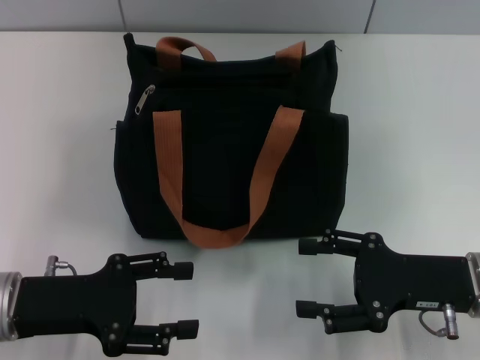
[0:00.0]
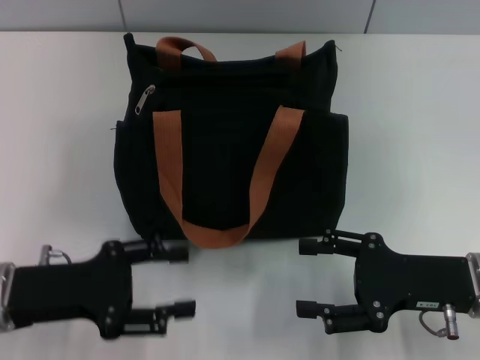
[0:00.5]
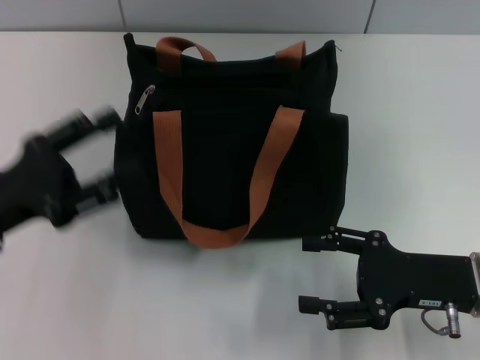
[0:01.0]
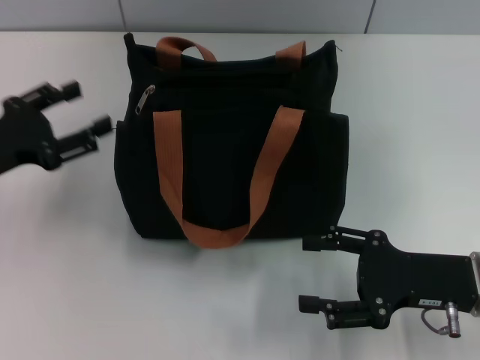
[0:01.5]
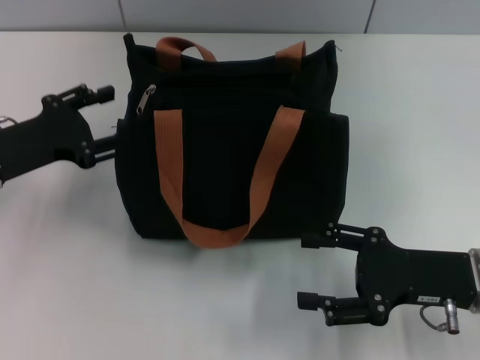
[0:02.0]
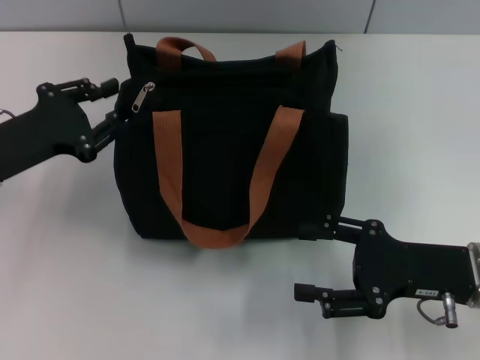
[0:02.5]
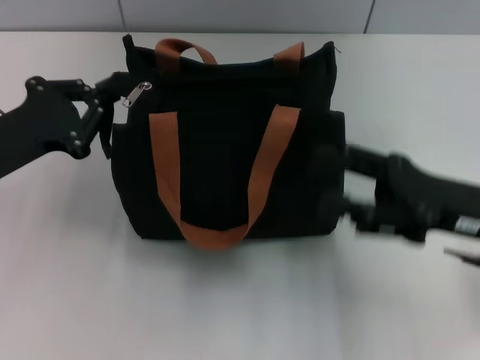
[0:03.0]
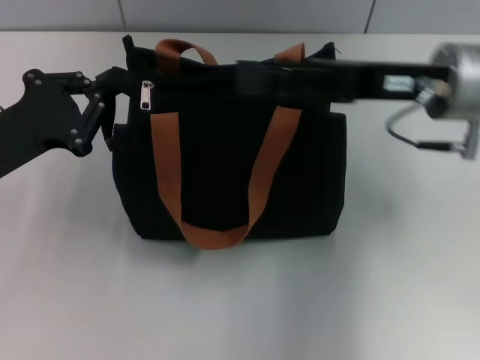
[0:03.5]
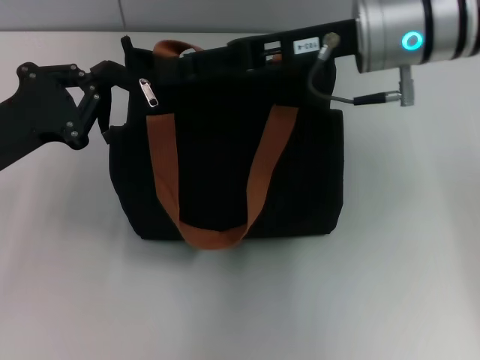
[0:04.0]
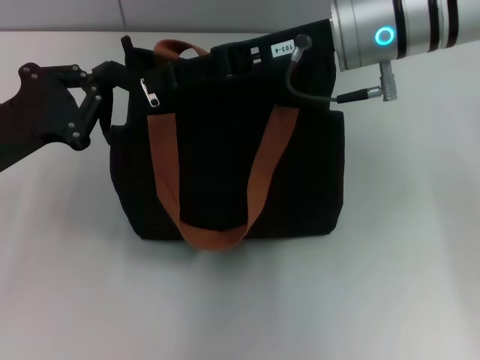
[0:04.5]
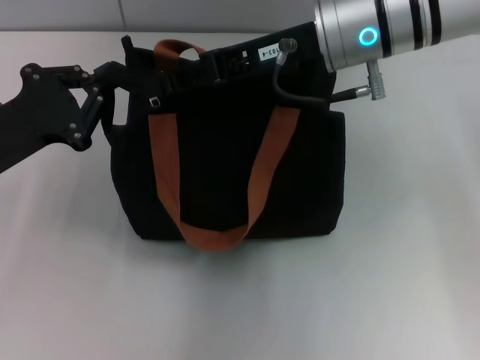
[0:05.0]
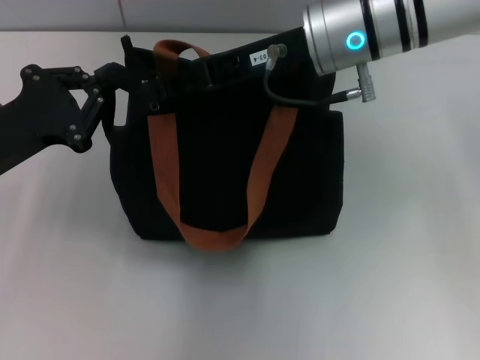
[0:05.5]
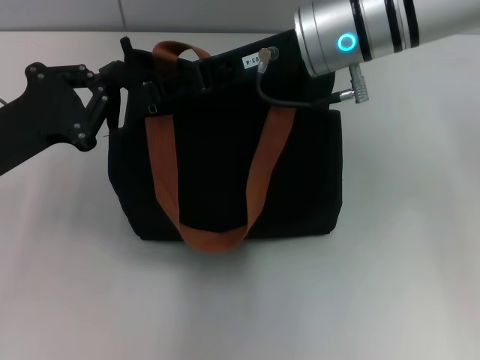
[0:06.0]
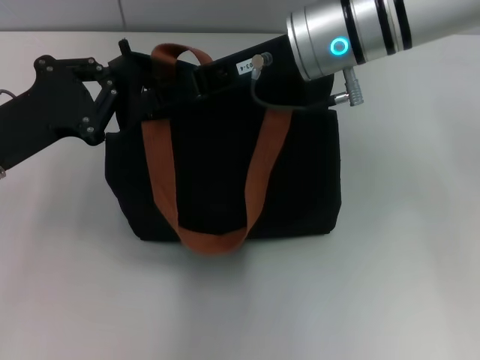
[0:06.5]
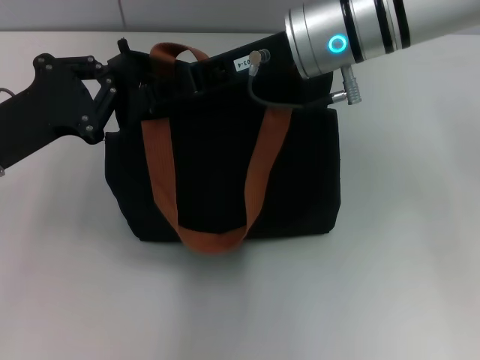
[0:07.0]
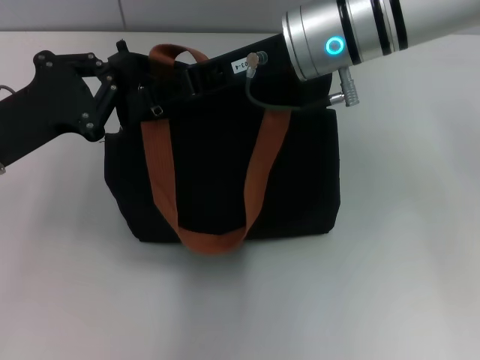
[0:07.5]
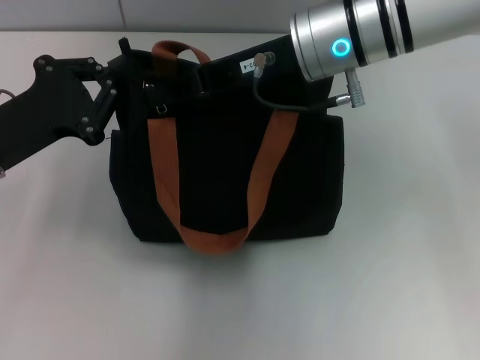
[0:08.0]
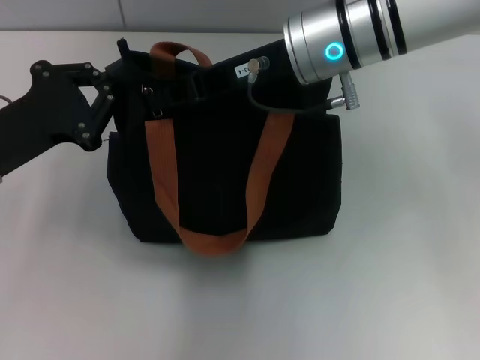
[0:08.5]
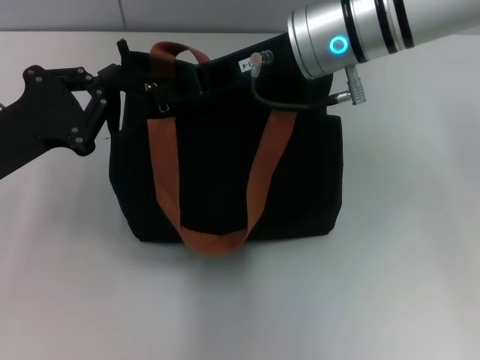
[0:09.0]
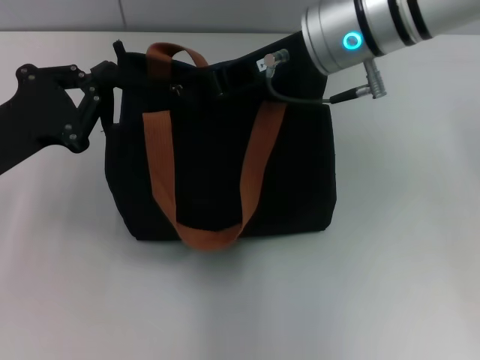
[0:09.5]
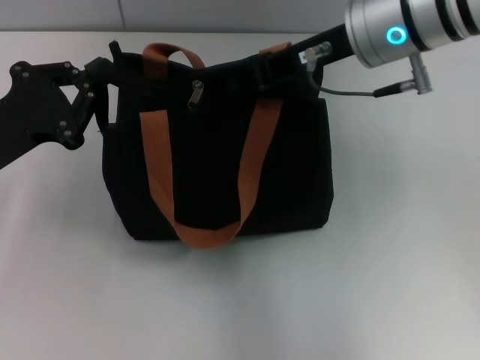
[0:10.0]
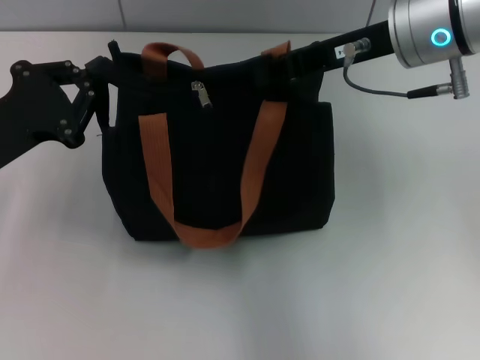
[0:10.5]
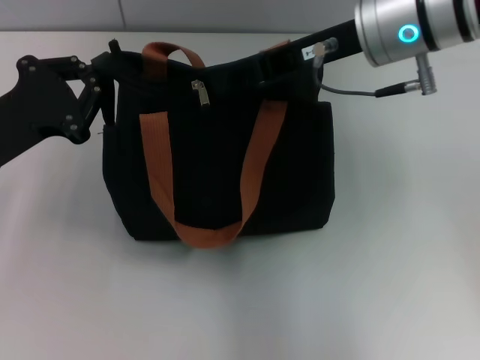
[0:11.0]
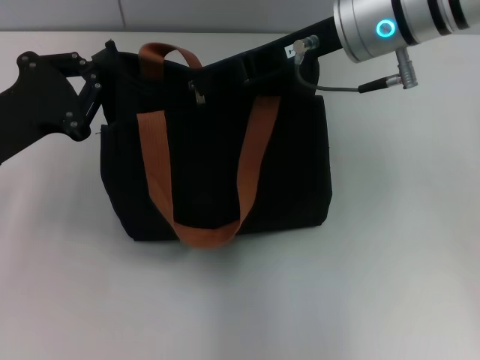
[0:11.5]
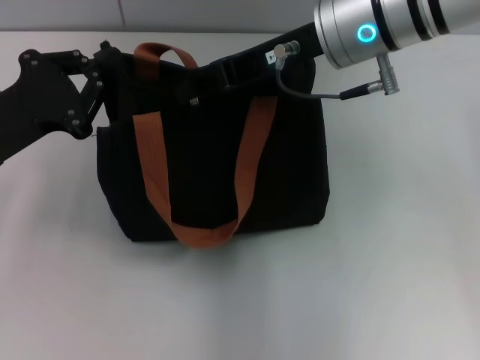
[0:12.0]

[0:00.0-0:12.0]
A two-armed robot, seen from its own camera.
0:00.0 to 0:02.0: The left gripper goes some 10 cm forward.
0:02.0 to 0:04.0: The left gripper closes, while the right gripper travels upward, forward and to the left by some 25 cm.
0:04.0 to 0:06.0: The right gripper closes up.
0:06.0 to 0:08.0: The right gripper closes up.
0:08.0 to 0:10.0: The grippers stay close to where they were, moving slightly.
0:10.0 to 0:12.0: The right gripper opens.

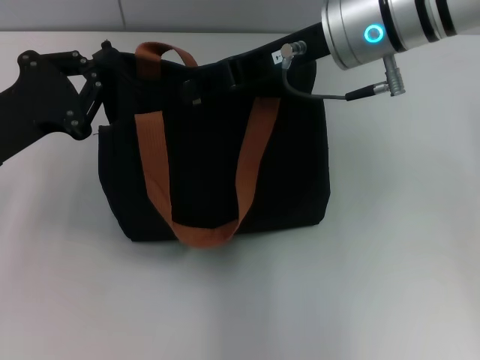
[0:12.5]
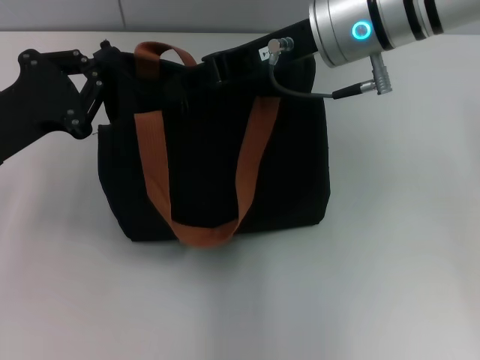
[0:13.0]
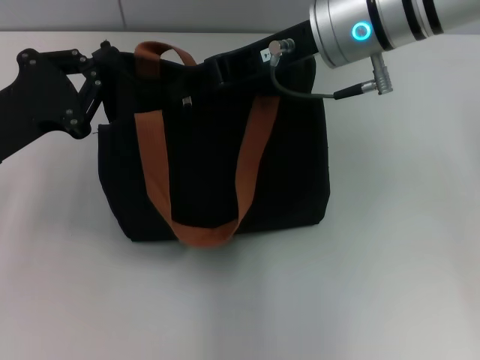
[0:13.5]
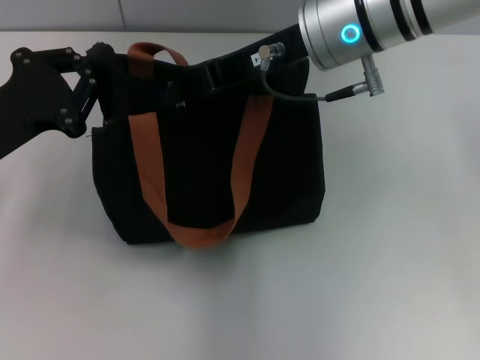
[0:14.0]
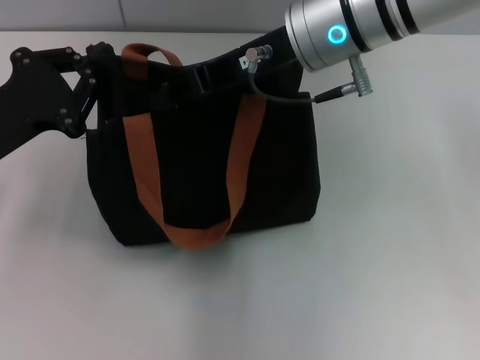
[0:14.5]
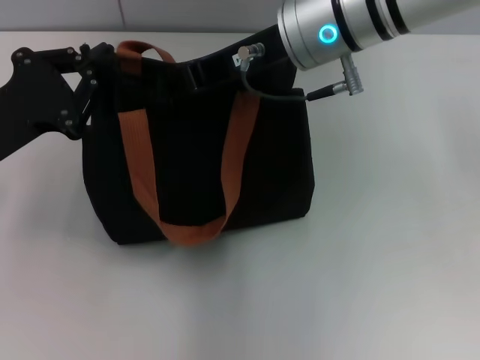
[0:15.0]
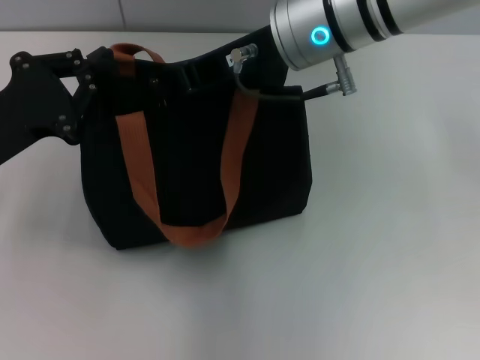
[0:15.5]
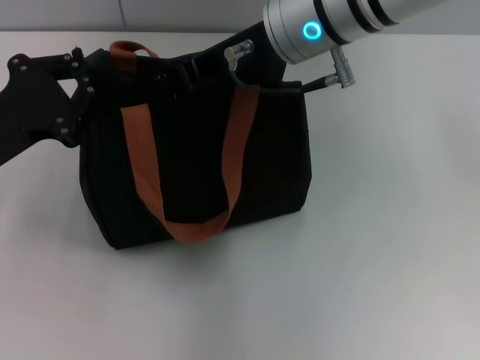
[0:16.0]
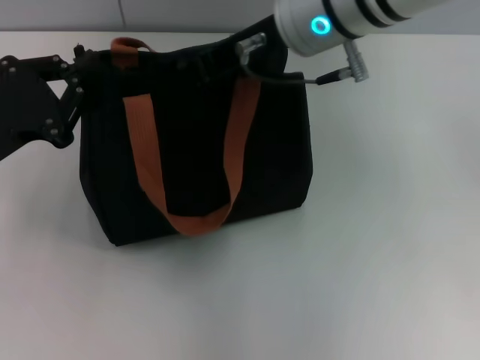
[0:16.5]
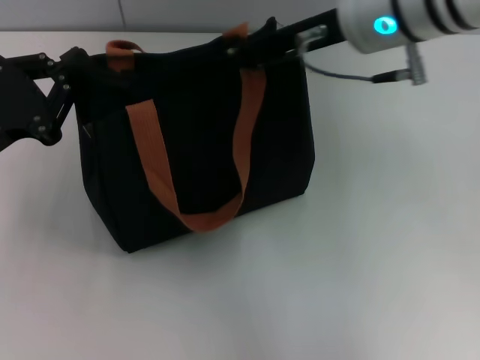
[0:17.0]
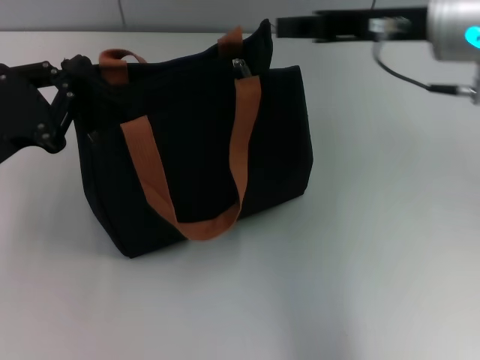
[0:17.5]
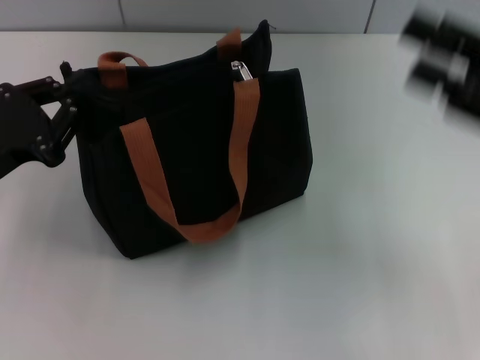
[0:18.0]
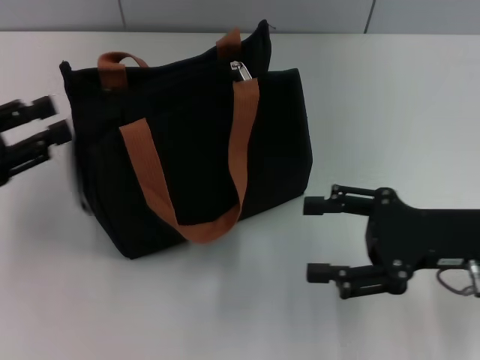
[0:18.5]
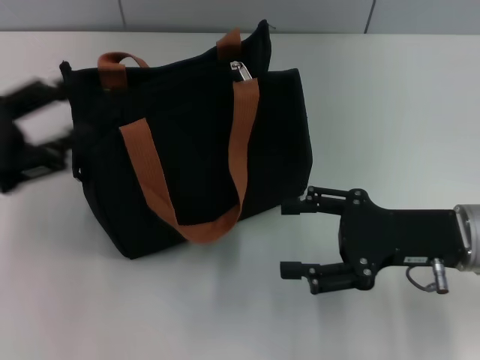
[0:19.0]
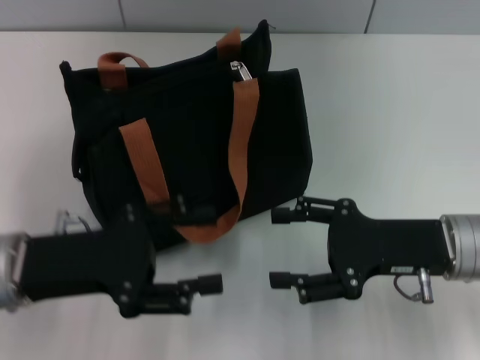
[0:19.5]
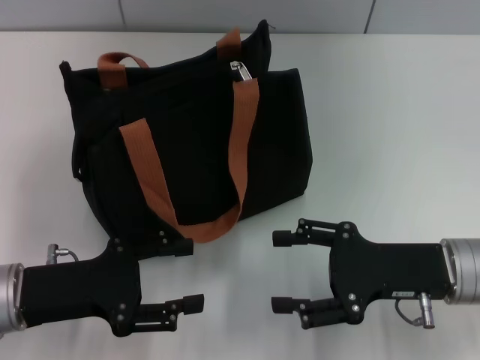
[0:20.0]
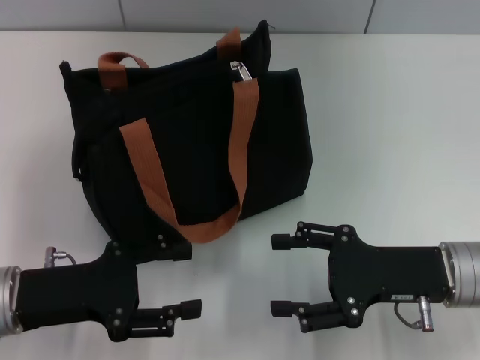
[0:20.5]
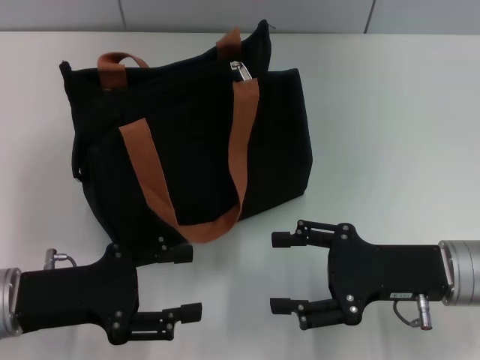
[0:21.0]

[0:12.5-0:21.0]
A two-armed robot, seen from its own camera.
Step, 0:12.5 to 0:17.0: Pull up the zipper with your right hand.
Step, 0:17.5 to 0:18.5: Grab the zipper with your left hand.
0:12.5 to 0:14.5: The grippers make only small movements.
0:14.5 to 0:16.5: The right gripper closes its fingers.
0:16.5 to 0:19.0: The left gripper opens its fingers; the right gripper goes approximately 25 cm to the right, downward and backward, and opens up.
0:19.0 to 0:21.0: The left gripper heads downward and to the right, covering about 10 cm.

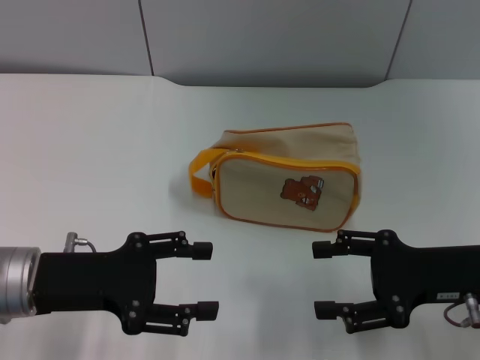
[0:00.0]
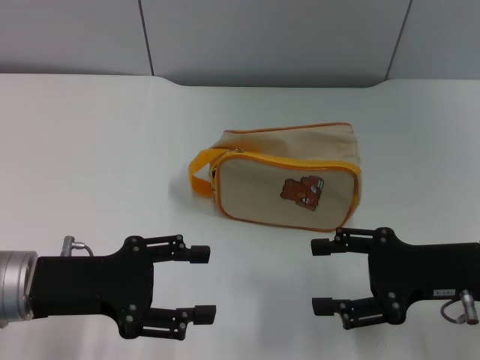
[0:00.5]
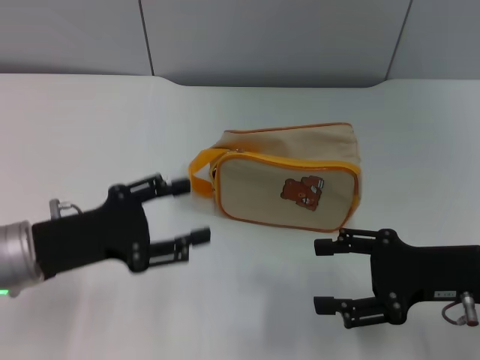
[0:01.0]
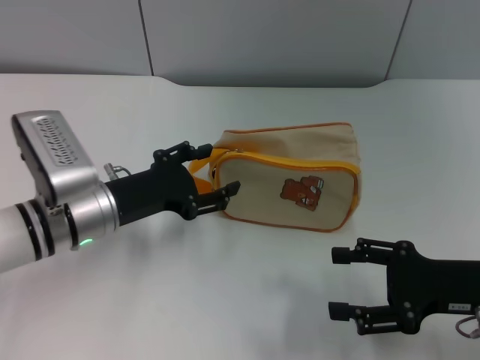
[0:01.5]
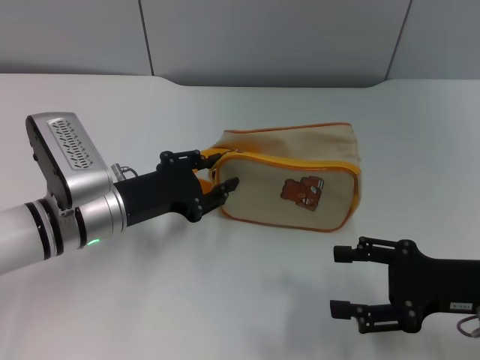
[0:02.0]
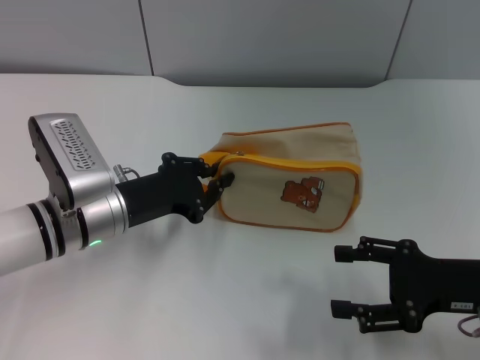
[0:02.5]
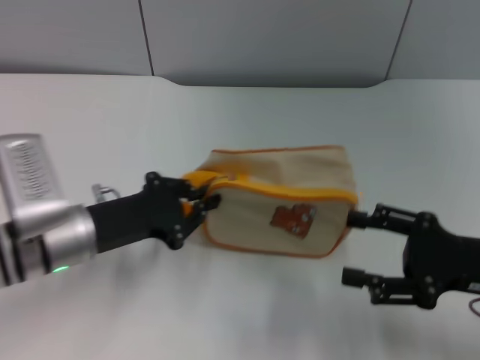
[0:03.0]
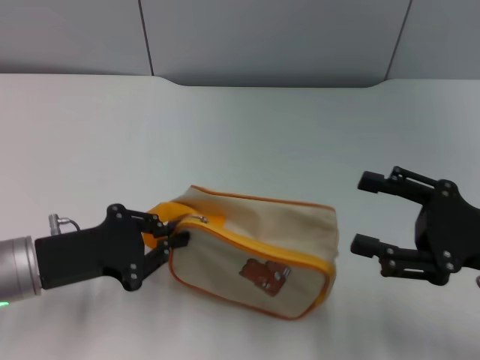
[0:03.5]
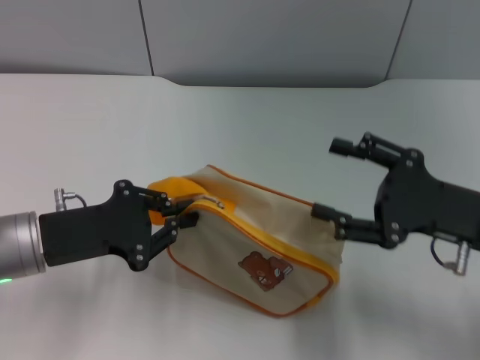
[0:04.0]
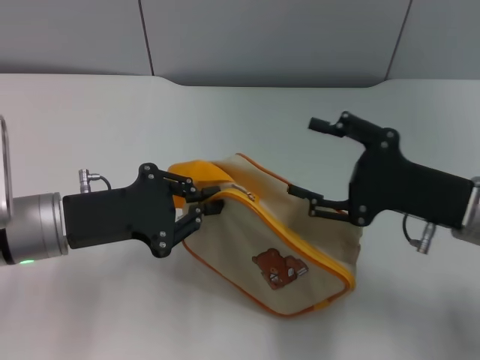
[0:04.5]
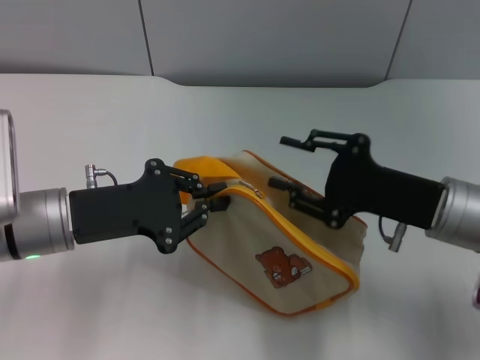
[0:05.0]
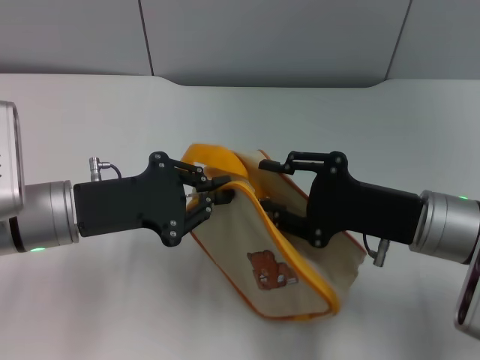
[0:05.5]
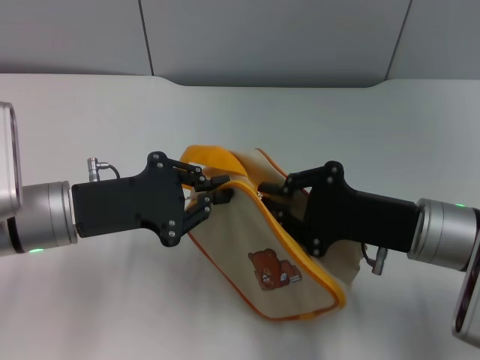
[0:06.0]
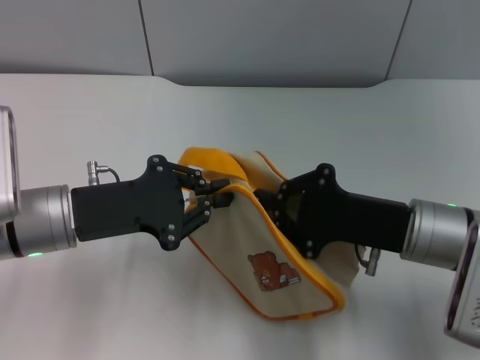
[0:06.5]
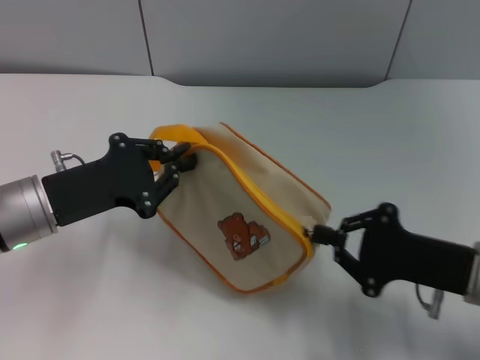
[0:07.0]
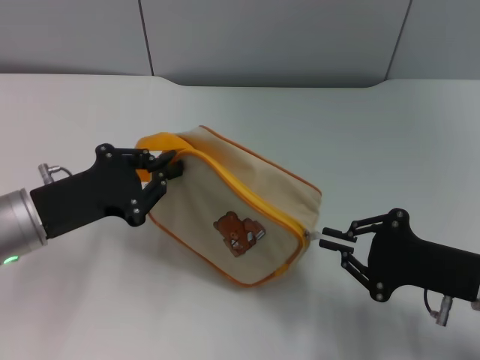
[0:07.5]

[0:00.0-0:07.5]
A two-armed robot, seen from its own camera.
Step, 0:00.0 to 0:04.0: Pick up the bag with left gripper.
0:00.0 to 0:02.0: The left gripper moves forward and to the right, approximately 10 cm.
0:02.0 to 0:04.0: The left gripper is displaced to the left by some 5 cm, and closes its fingers.
0:04.0 to 0:05.5: The right gripper travels to the left by approximately 5 cm, and closes up.
0:05.5 to 0:07.5: The right gripper shifts about 5 cm to the right, and closes.
